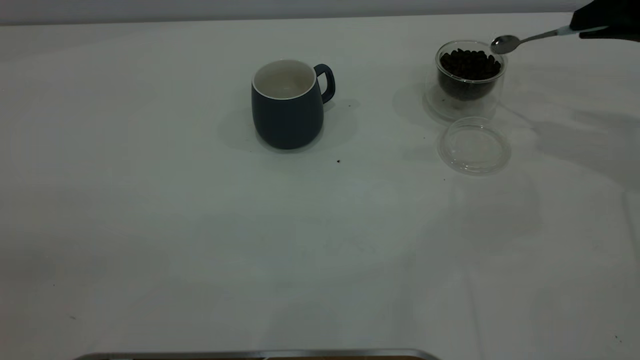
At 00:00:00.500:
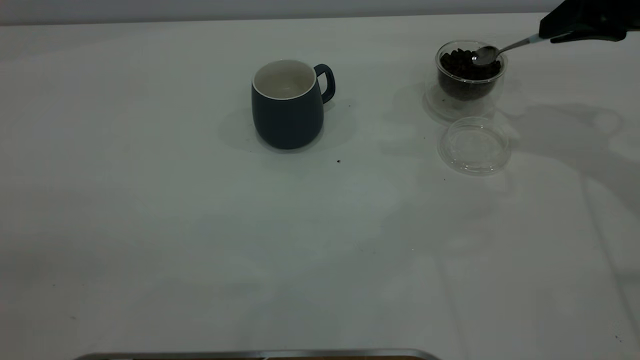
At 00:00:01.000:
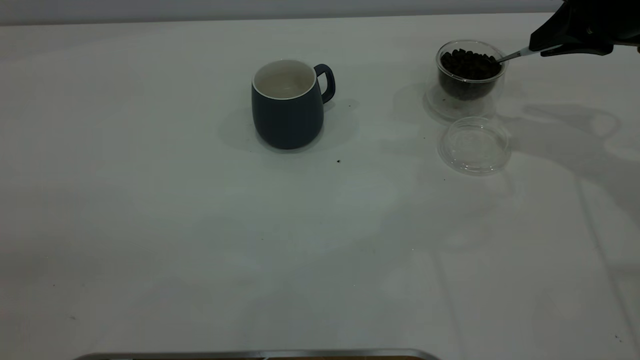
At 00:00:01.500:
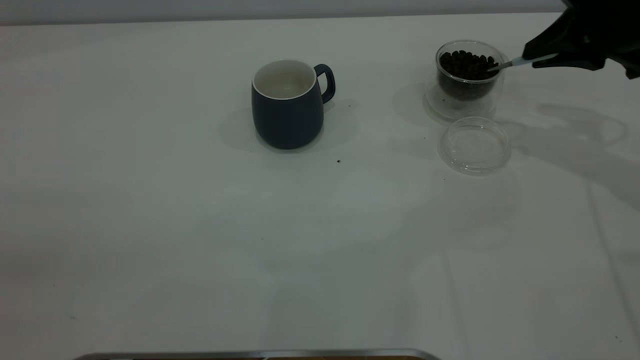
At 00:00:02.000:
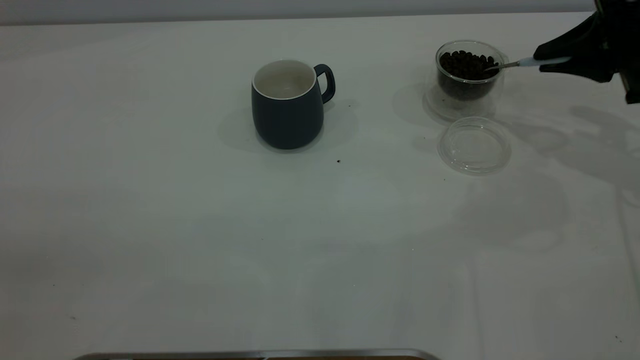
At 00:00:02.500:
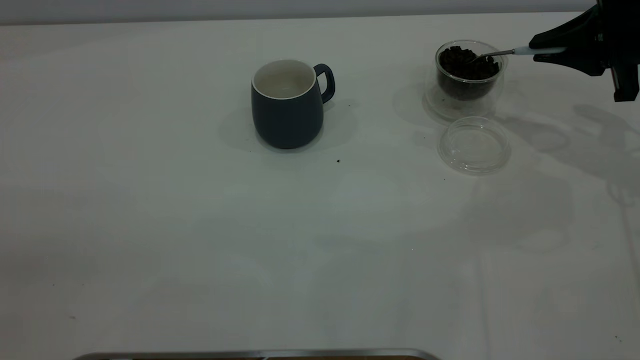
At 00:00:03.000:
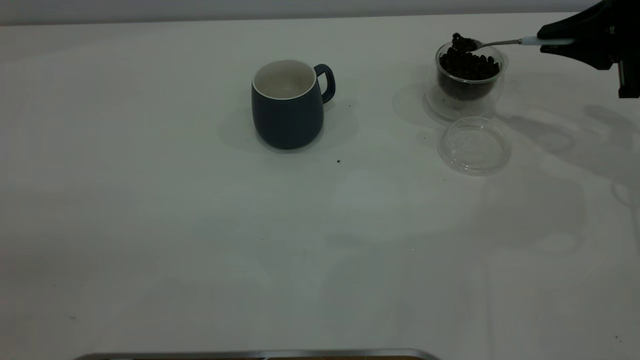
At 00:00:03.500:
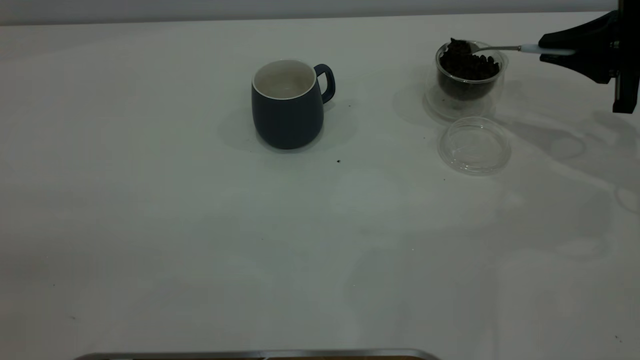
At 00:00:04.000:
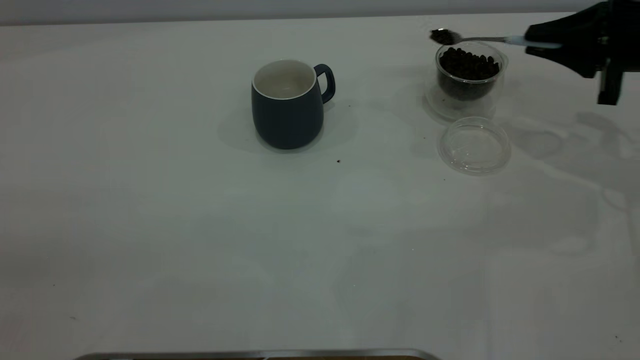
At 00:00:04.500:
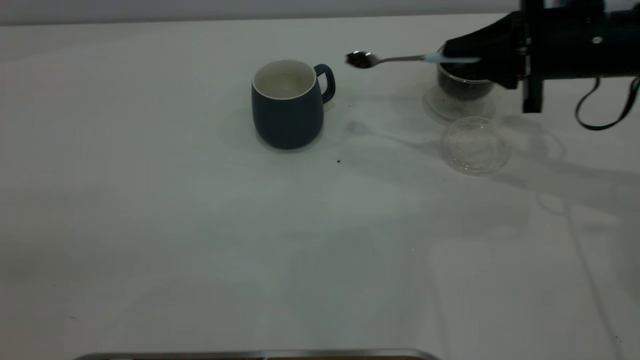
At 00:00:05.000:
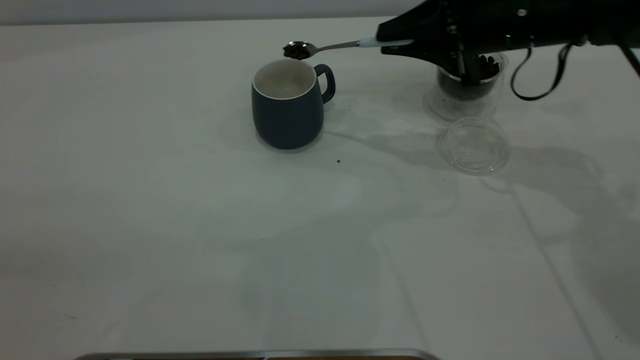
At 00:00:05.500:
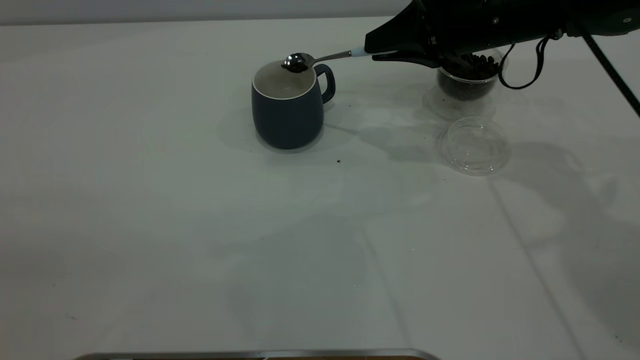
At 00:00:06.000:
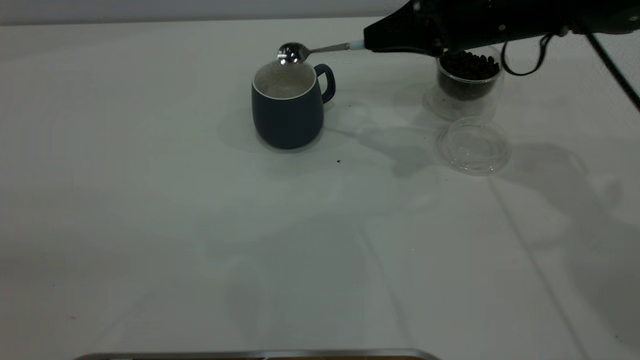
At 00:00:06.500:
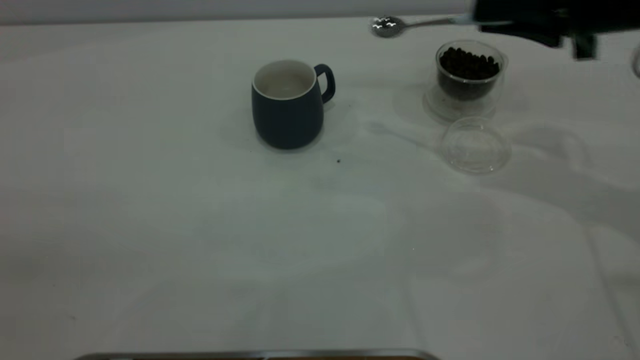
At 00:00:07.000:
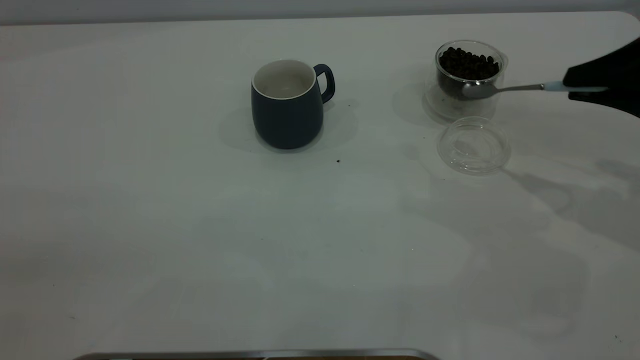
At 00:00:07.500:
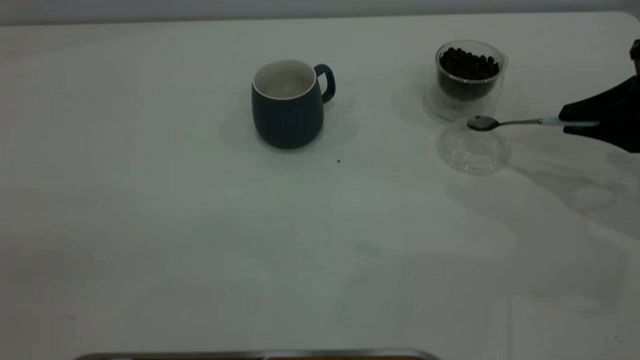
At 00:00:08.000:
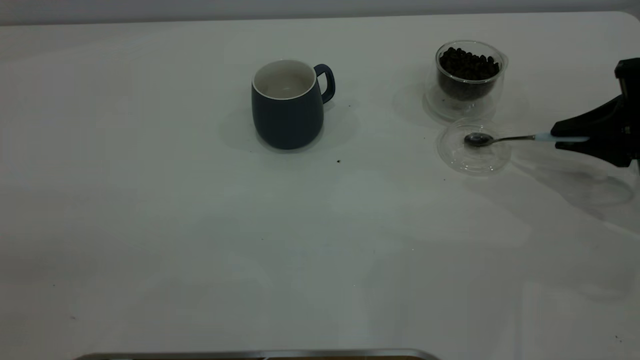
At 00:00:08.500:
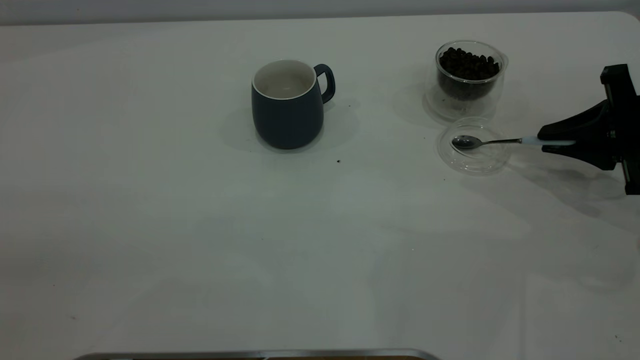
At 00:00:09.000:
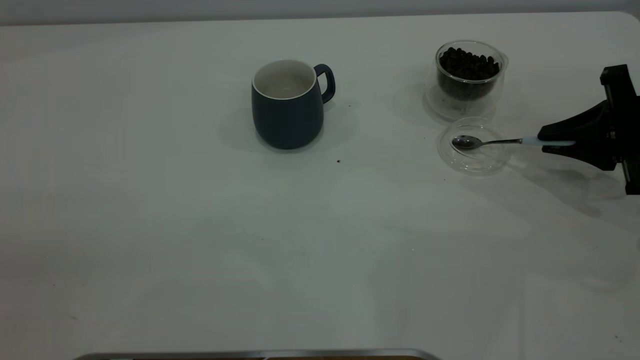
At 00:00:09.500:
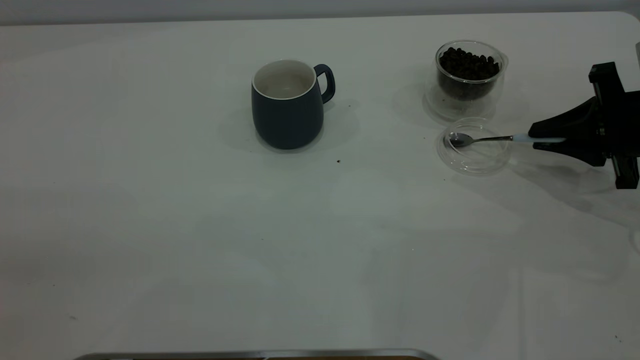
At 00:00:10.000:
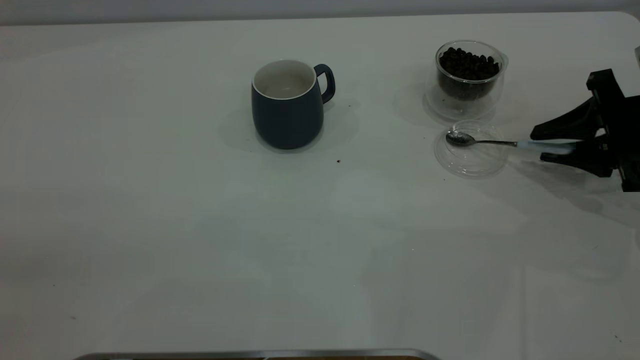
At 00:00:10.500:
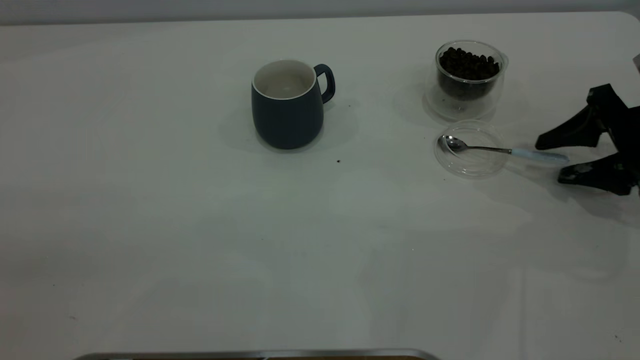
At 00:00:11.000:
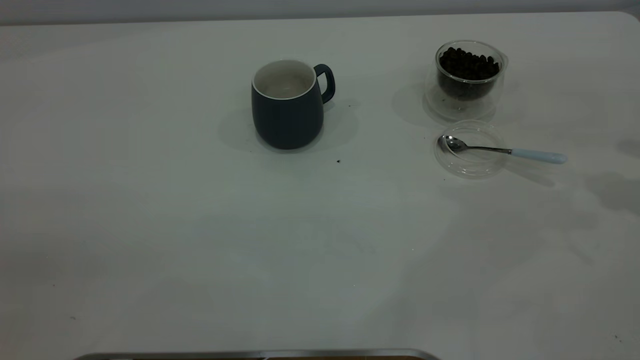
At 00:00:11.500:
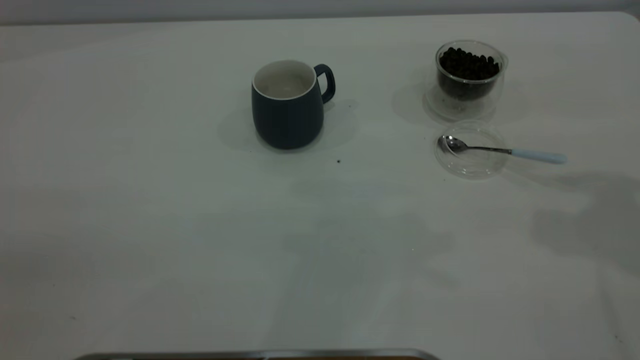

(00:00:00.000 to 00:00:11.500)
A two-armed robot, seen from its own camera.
Task of the whole recording: the left gripper place the grey cup in the center of the table, the right gripper take the blue spoon from the cup lid and scoop out the coffee beans from the coffee cup and put them into the grey cup, the right gripper put the spoon back into the cup lid.
Step, 00:00:00.000 - 00:00:06.000: Scoop a spoonful of beans into the cup.
Step, 00:00:06.500 - 00:00:10.500: Place the spoon back in its original place.
00:00:00.000 - 00:00:02.000: The right gripper is displaced downward by roughly 5 cm.
00:00:02.000 - 00:00:04.000: There are only small adjustments of the grippers.
00:00:04.000 - 00:00:06.000: The right gripper heads to the left, covering roughly 15 cm.
00:00:06.000 - 00:00:07.500: The right gripper heads to the right and backward, covering approximately 20 cm.
00:00:07.500 - 00:00:09.500: The grippers stay close to where they were, moving slightly.
00:00:09.500 - 00:00:11.500: The right gripper travels upward by some 25 cm, and opens its fingers.

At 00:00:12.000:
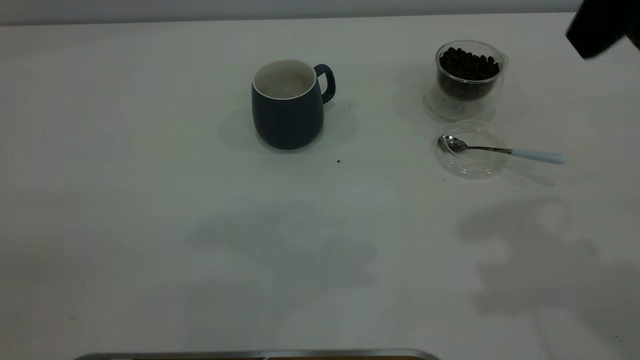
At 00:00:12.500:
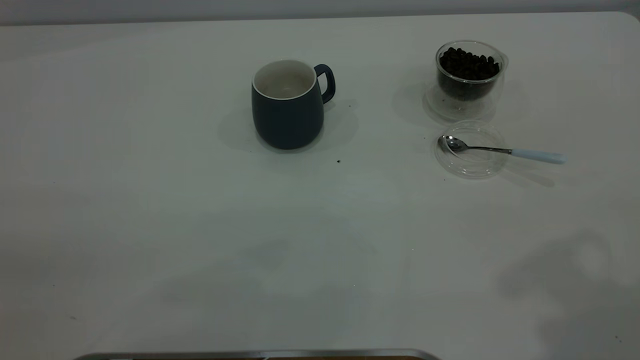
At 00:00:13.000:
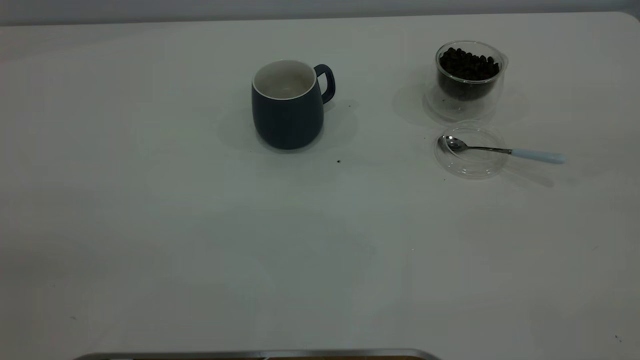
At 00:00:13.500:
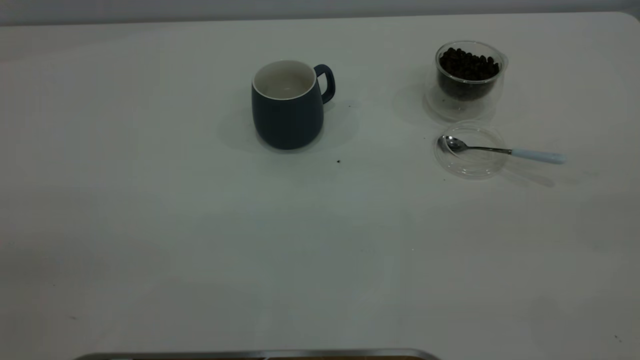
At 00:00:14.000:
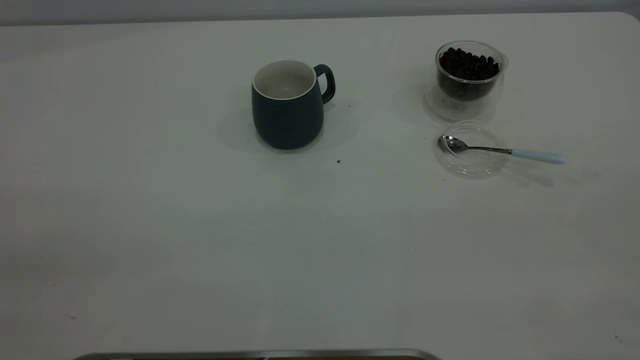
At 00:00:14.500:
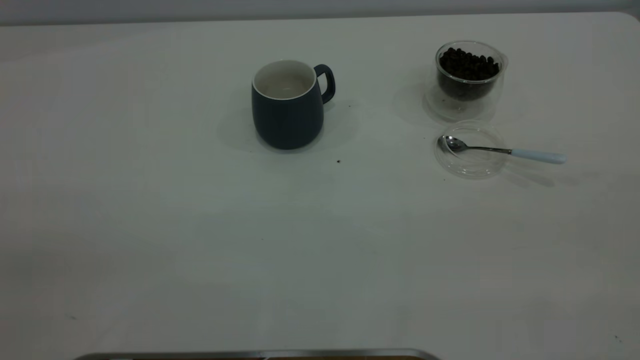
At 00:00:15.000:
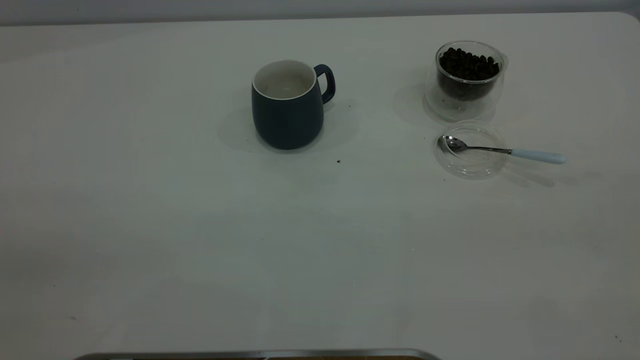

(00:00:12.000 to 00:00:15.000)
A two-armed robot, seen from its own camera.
Task of the whole recording: the left gripper place the grey cup in the center of the table, the right gripper take the blue spoon from the cup lid and scoop out the coffee beans from the coffee cup and put them into the grey cup, the right gripper put the spoon back into the cup lid.
00:00:12.000 - 00:00:13.500: The right gripper shifts some 25 cm backward.
